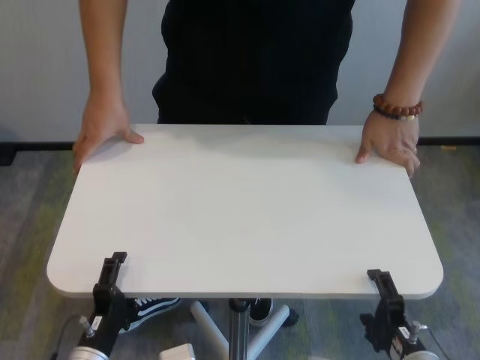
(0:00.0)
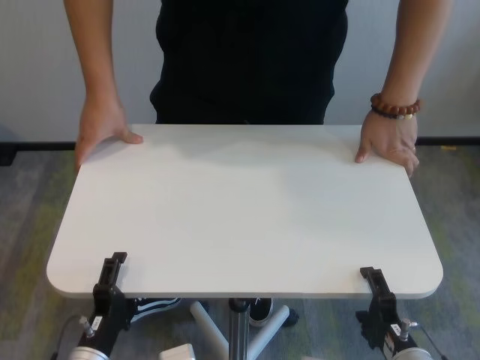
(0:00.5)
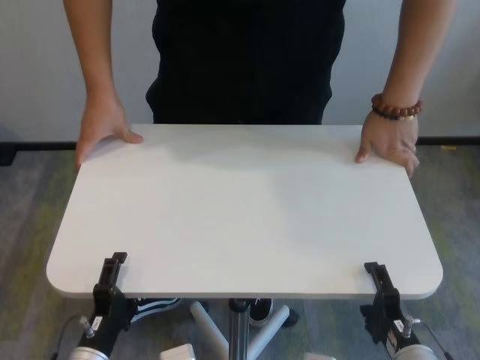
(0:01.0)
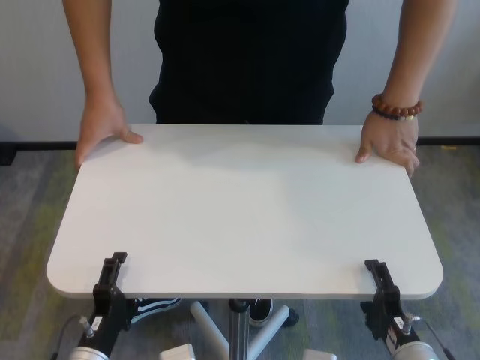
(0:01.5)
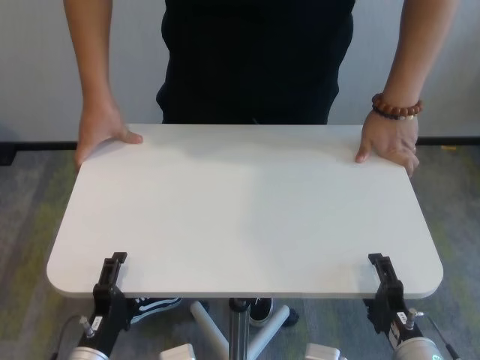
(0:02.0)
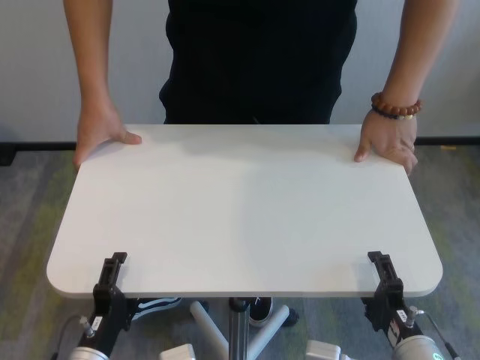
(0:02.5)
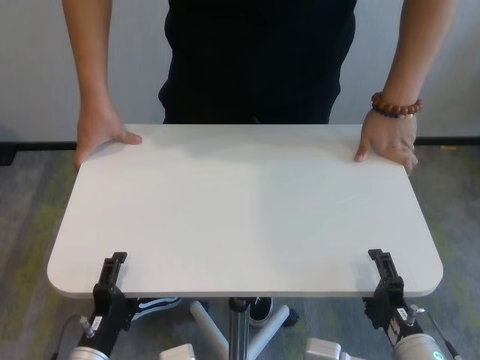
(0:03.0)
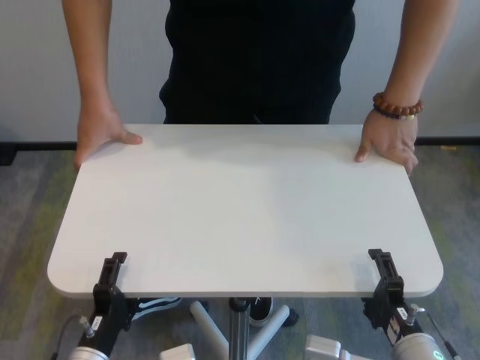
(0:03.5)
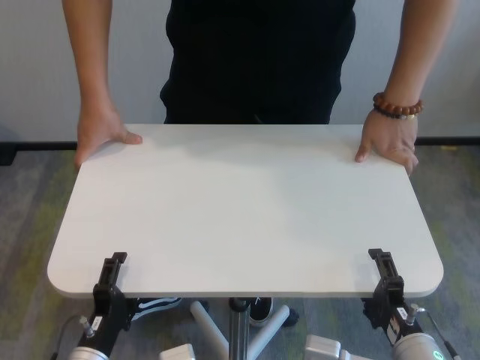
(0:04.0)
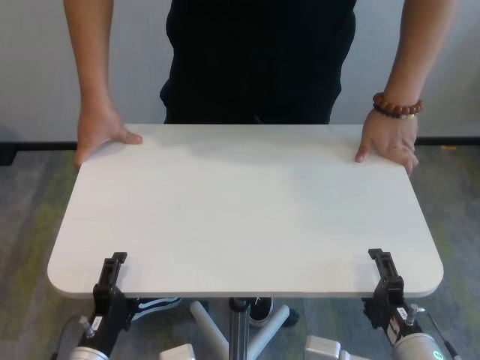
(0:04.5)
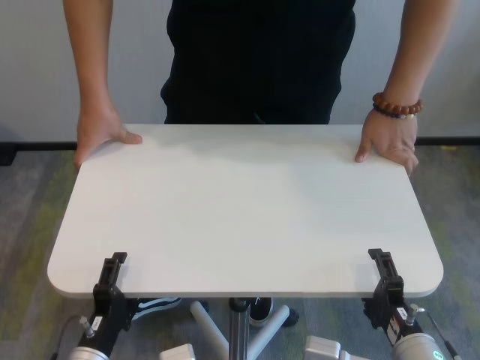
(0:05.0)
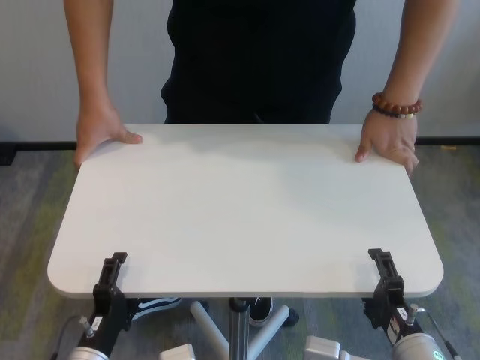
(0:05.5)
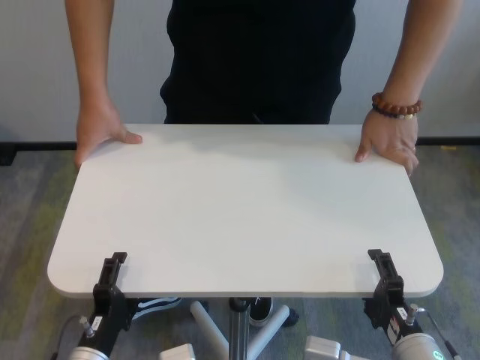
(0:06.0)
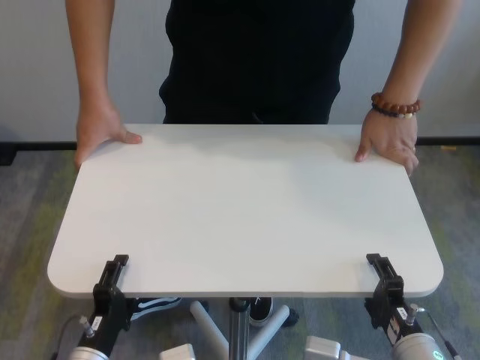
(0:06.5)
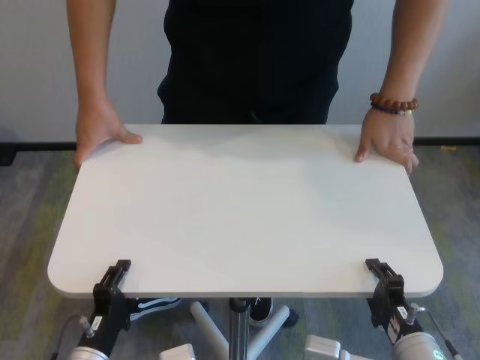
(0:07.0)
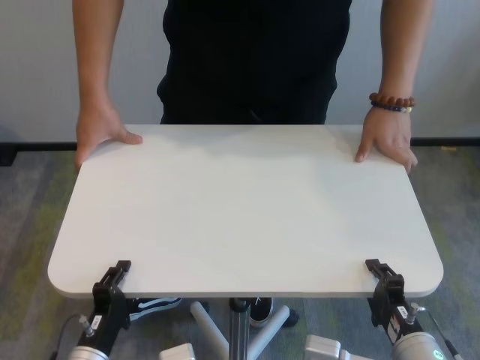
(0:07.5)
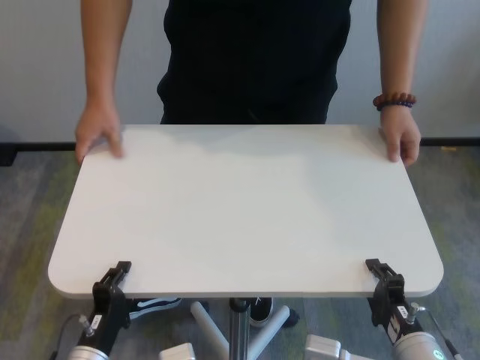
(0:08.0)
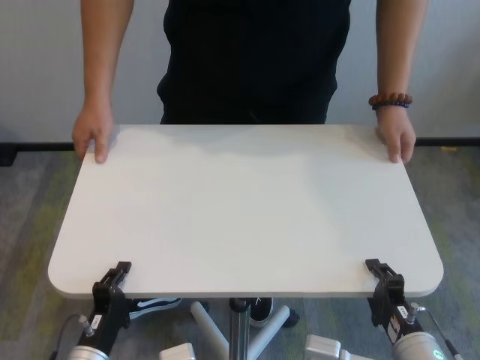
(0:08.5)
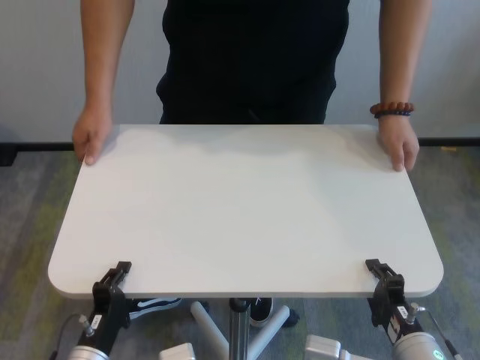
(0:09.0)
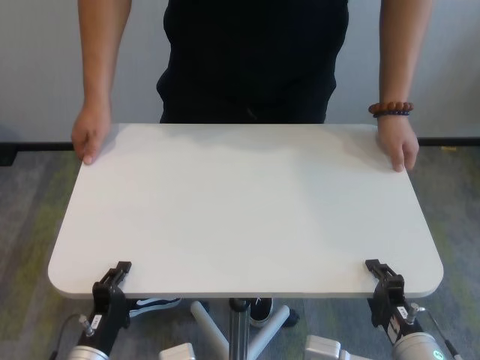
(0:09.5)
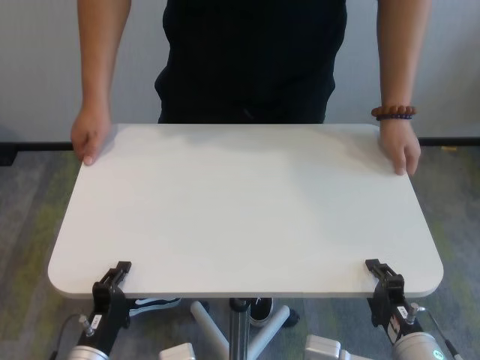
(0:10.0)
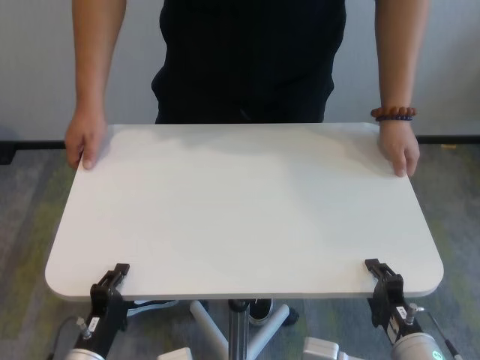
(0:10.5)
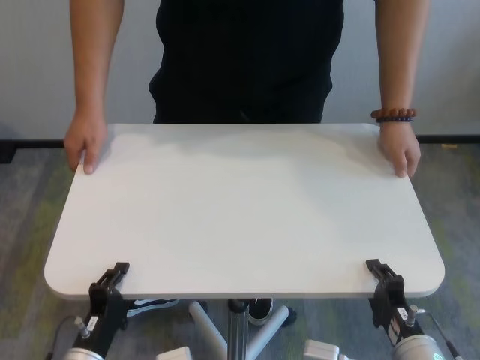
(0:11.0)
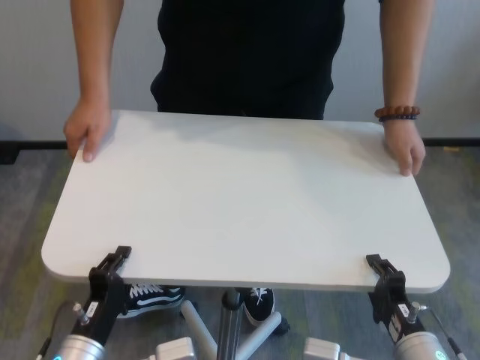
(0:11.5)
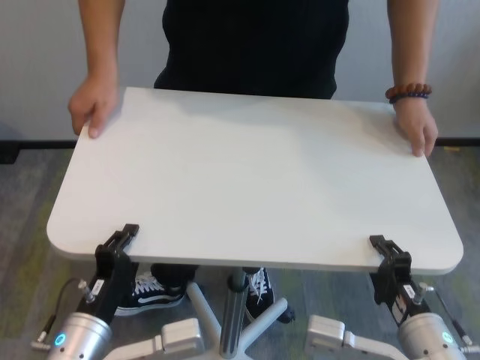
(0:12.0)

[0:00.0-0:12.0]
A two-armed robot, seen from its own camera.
Task of the whole recording: human machine collaborative table moving.
Step, 0:00.0 to 0:08.5: Grasp the table with both grippers.

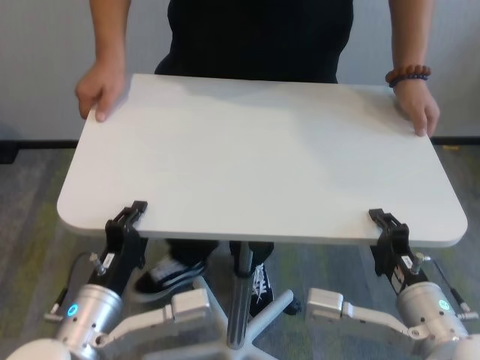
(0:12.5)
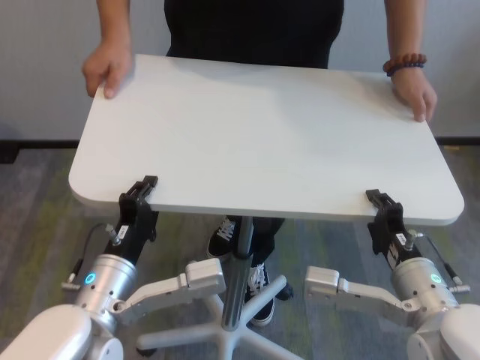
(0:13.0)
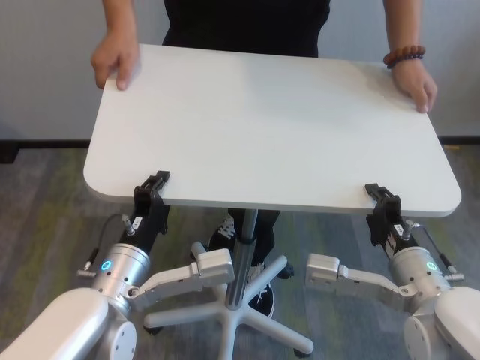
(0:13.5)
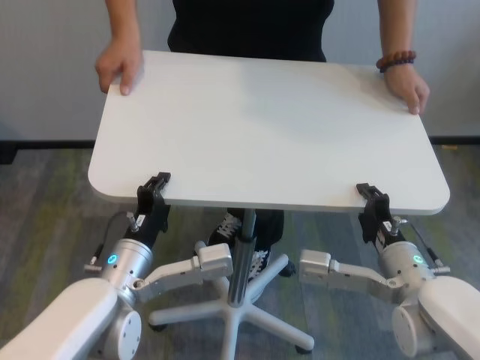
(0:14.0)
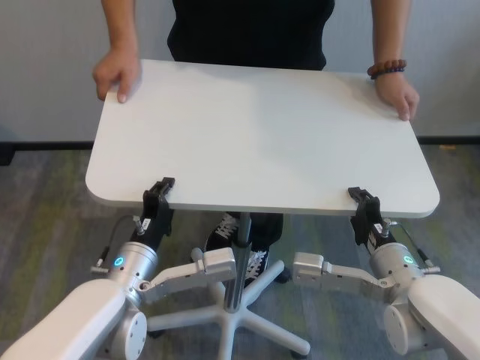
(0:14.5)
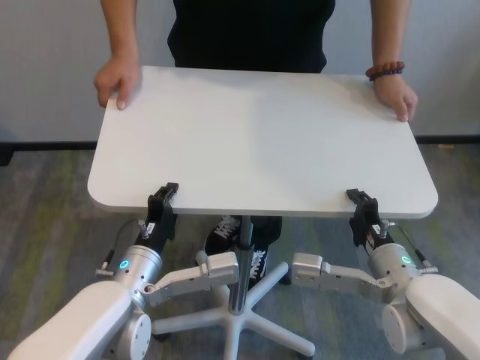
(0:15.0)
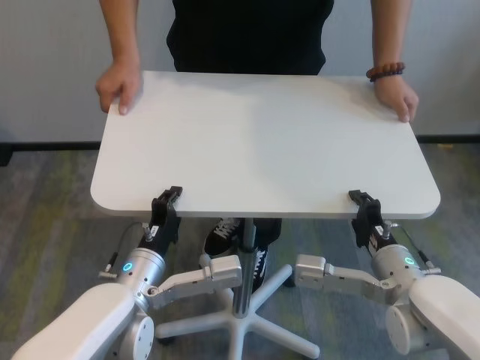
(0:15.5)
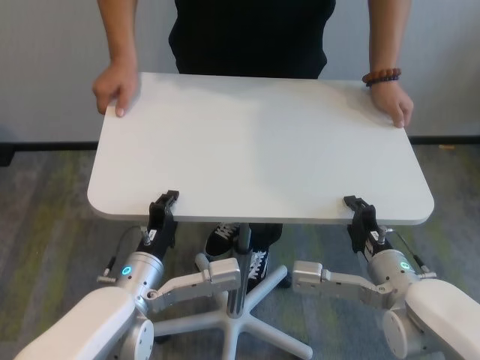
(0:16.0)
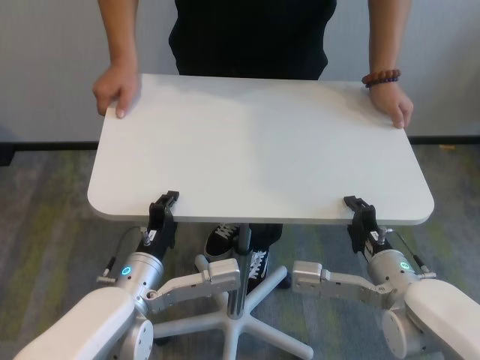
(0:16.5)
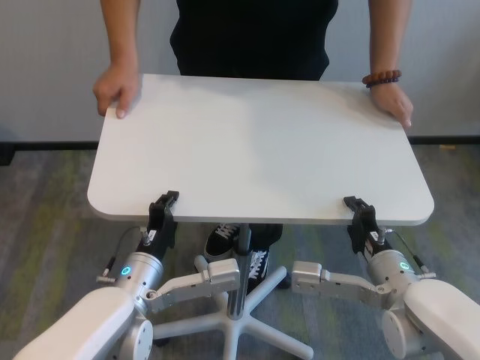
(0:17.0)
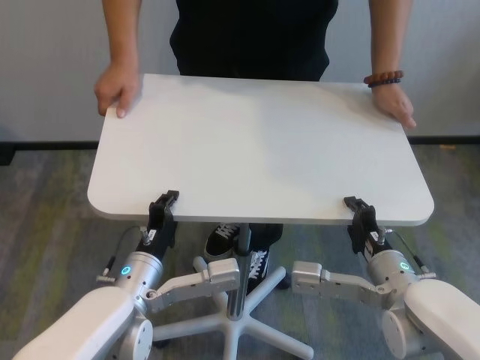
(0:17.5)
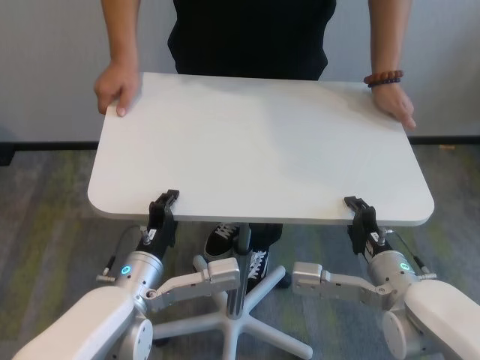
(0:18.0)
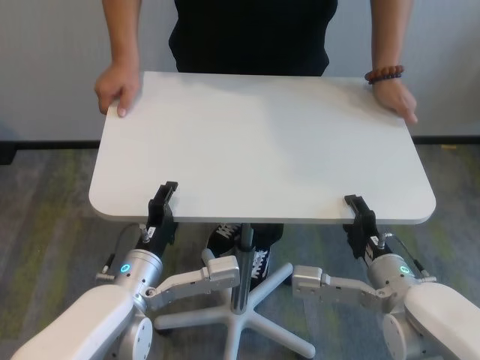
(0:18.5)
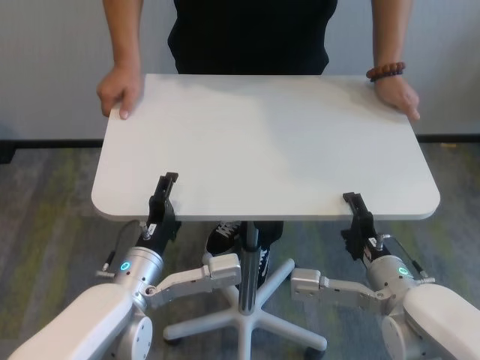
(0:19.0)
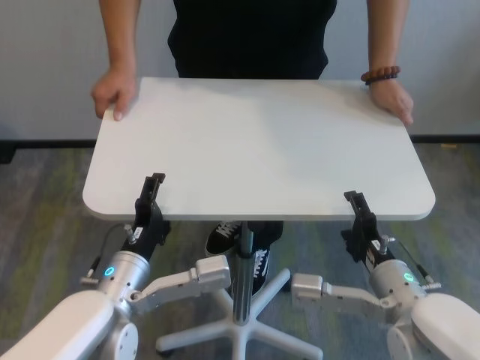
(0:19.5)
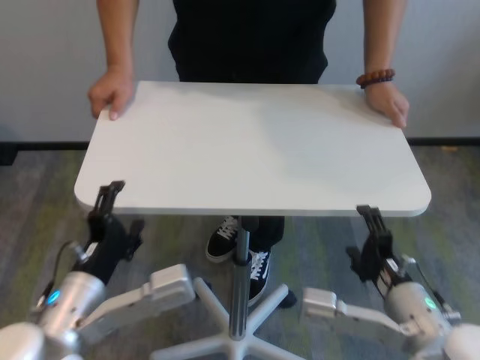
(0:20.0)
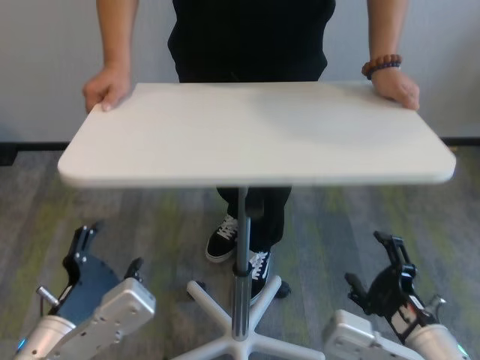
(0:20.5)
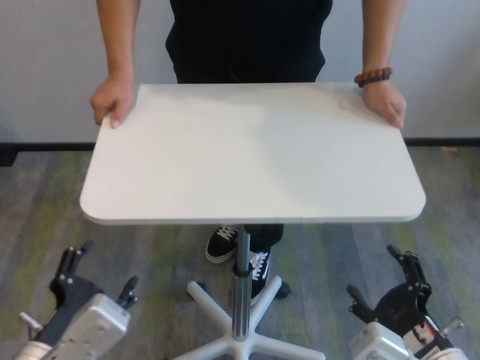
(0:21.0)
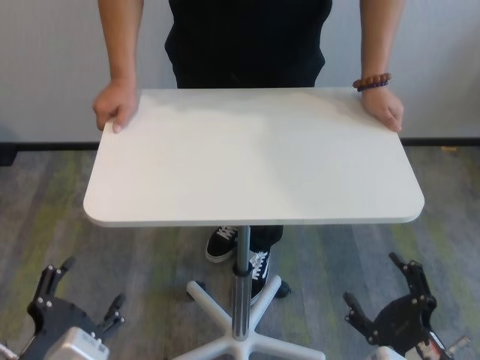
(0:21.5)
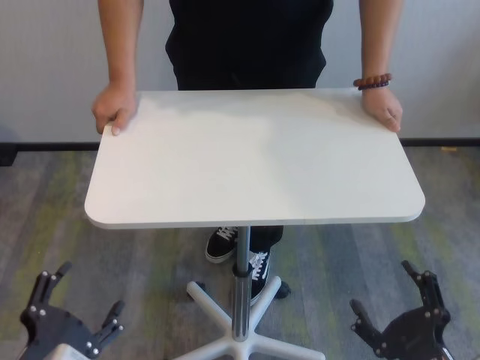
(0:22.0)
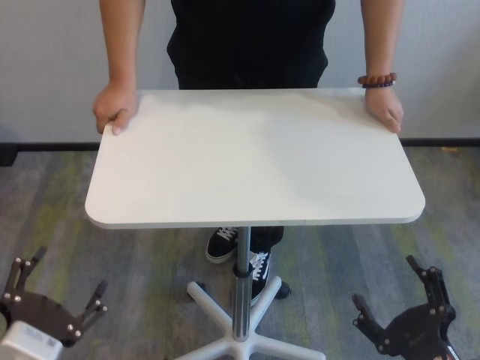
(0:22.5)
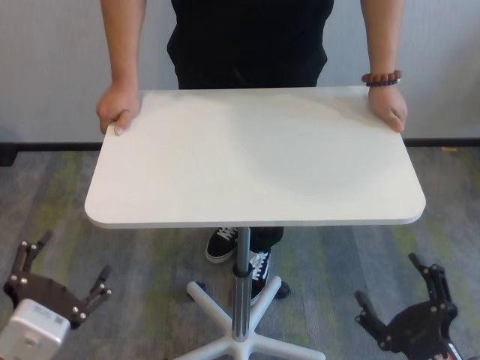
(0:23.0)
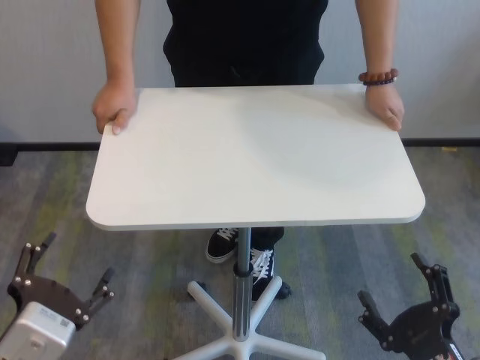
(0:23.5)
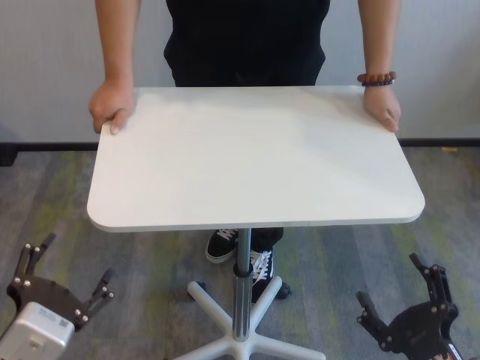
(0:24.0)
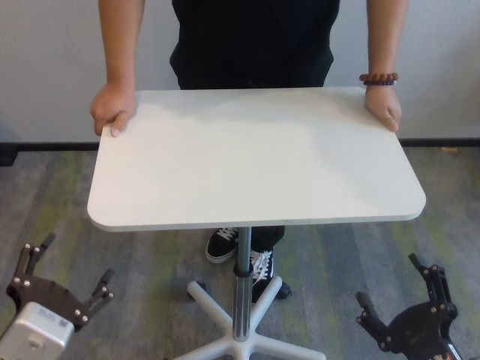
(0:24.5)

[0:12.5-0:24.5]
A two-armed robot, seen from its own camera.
Task of the whole recording: human machine collaborative table moving.
Step, 0:12.5 to 0:19.0: Move the table forward with both grippers.
